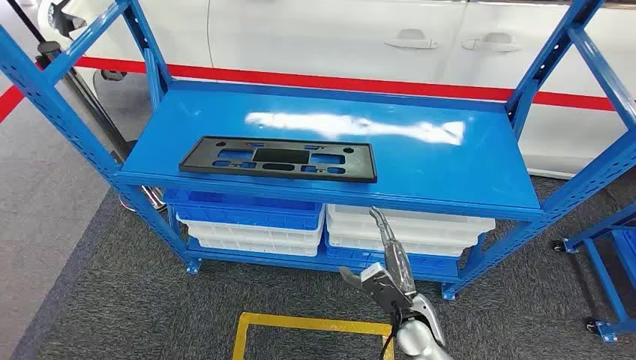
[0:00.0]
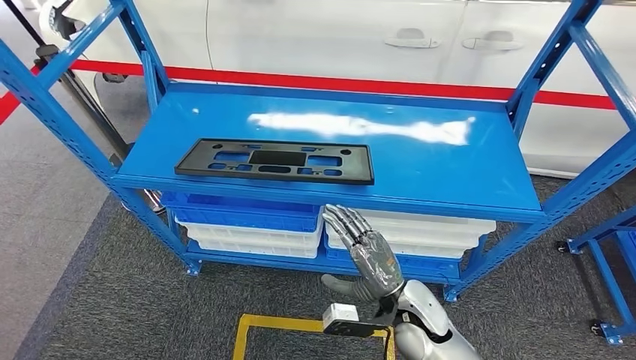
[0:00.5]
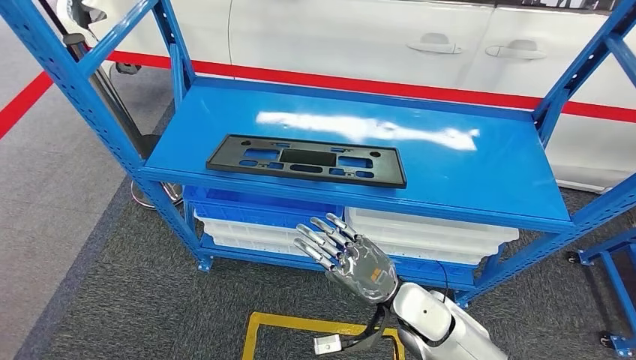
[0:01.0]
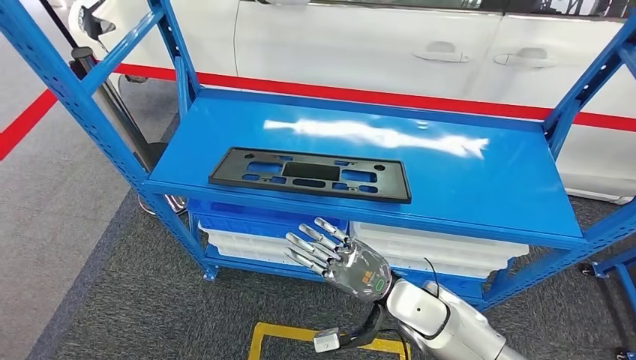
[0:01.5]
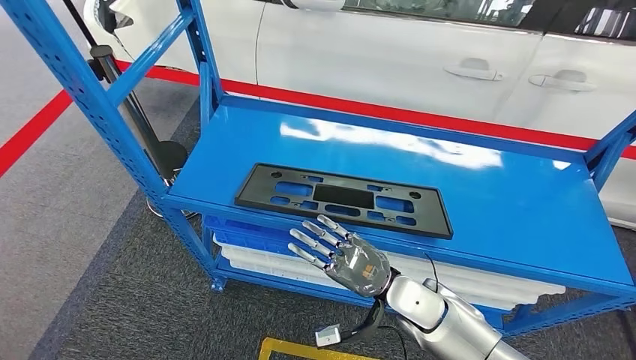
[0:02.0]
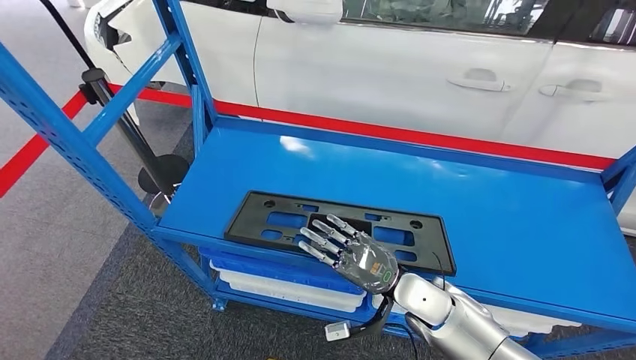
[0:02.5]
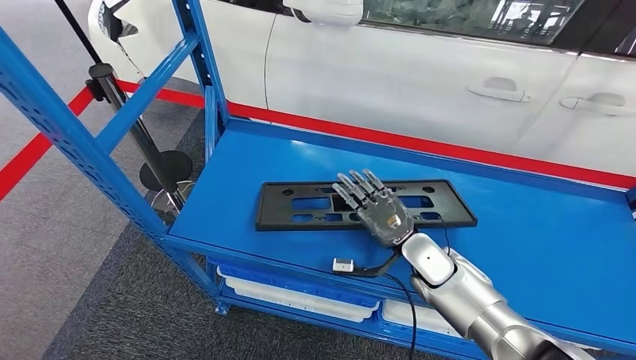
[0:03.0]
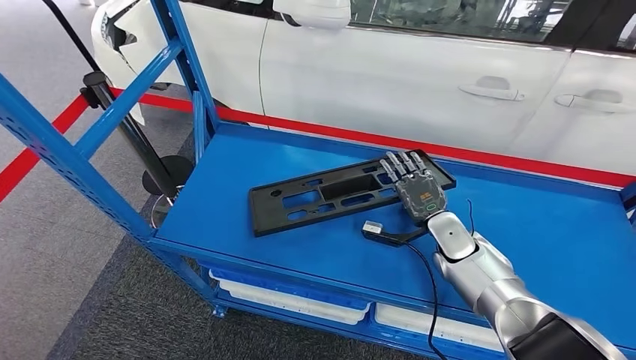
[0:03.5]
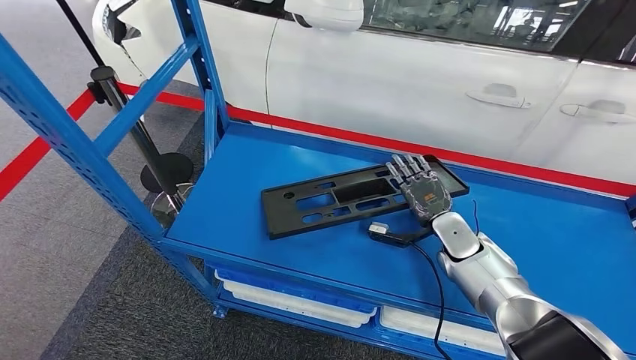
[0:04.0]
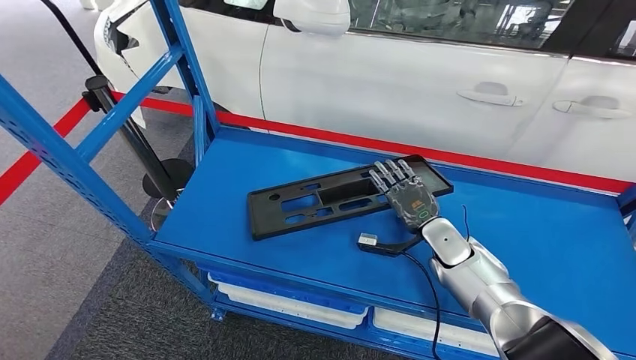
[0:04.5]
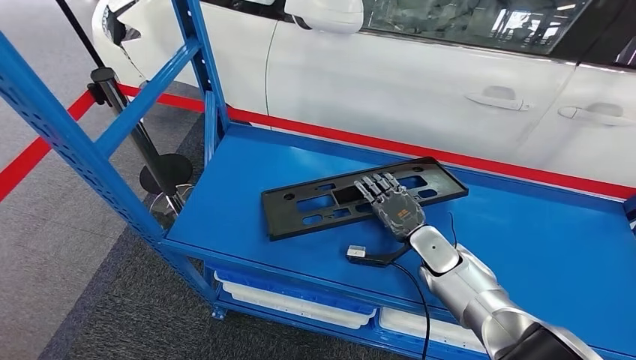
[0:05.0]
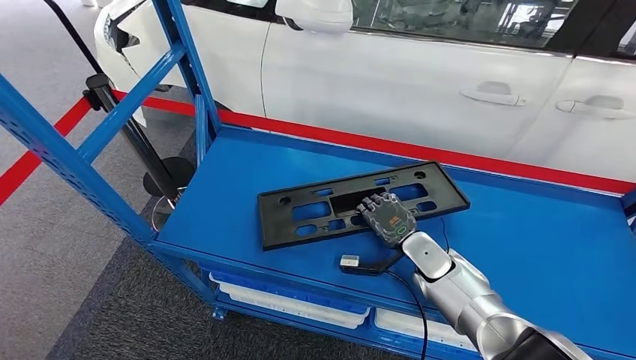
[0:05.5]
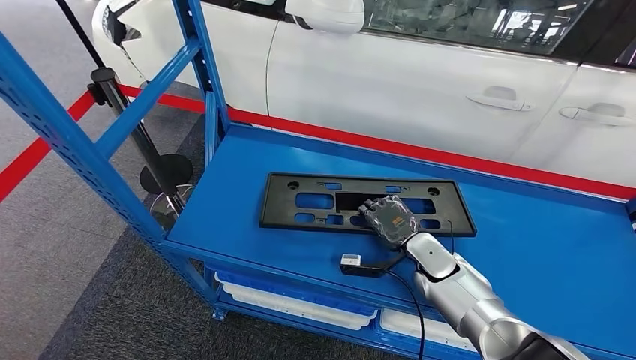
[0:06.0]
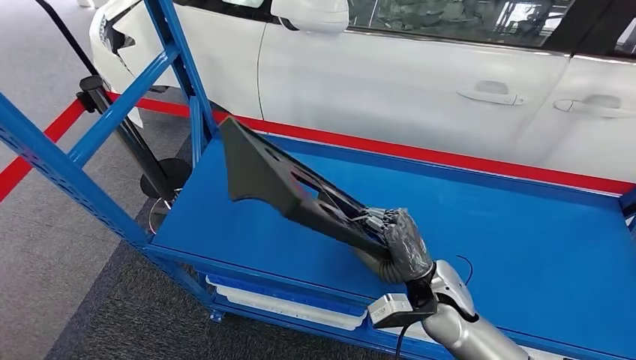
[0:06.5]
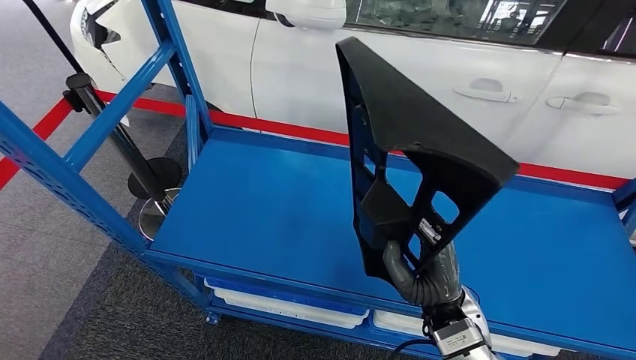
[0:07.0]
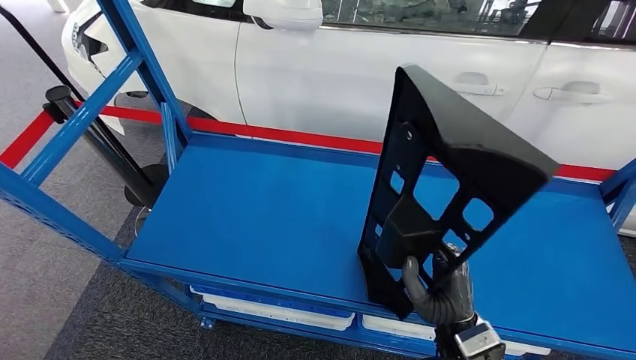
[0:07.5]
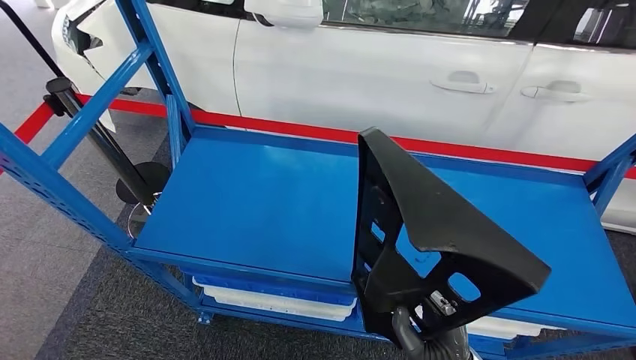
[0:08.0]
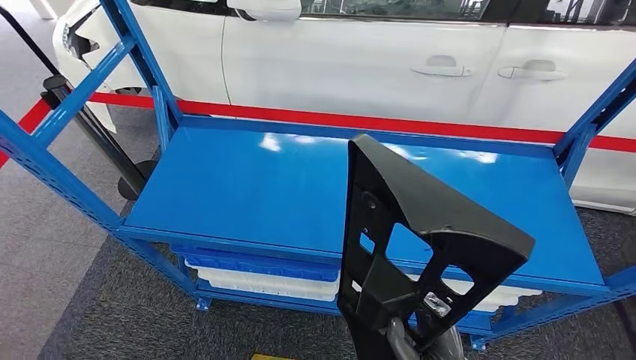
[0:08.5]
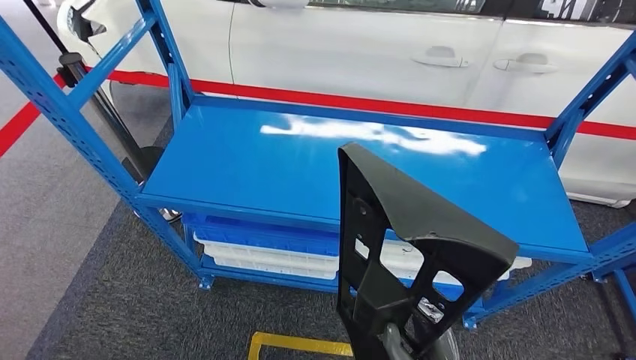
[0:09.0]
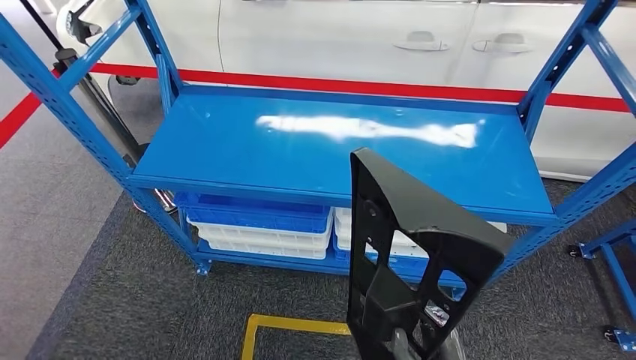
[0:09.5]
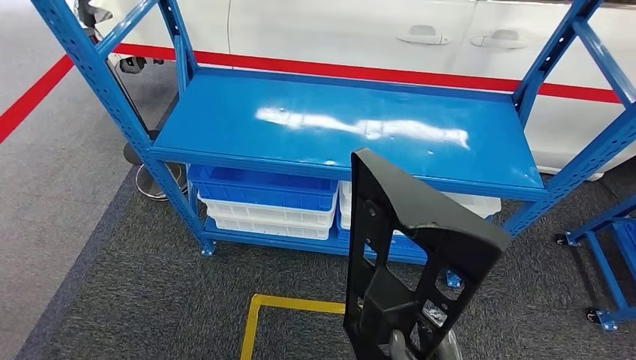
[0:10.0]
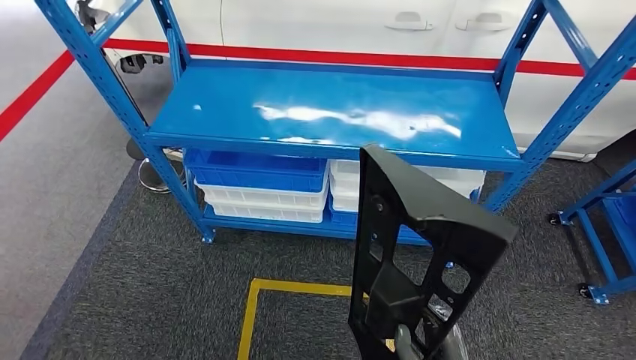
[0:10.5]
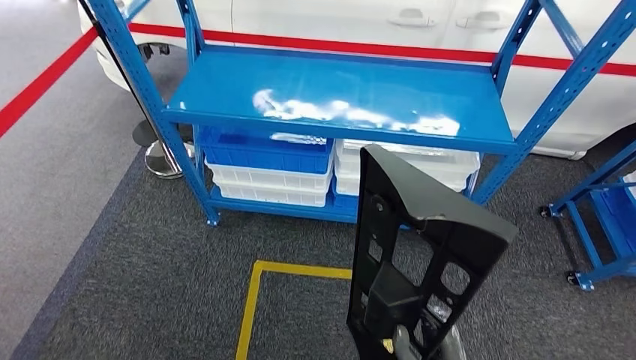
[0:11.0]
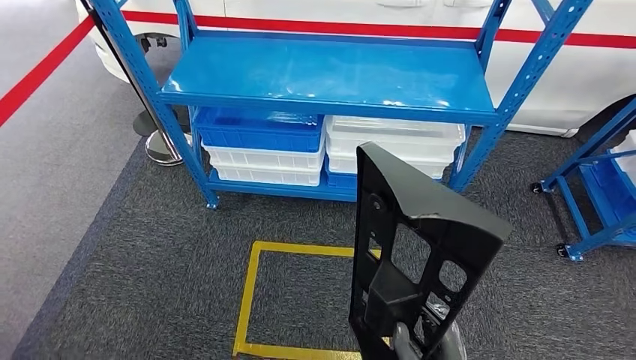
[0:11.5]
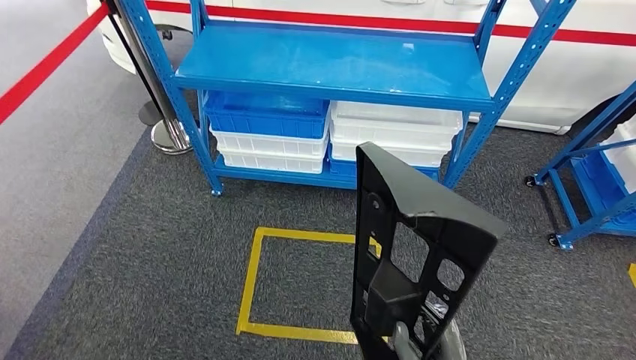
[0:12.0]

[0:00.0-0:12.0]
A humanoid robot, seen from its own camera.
Step, 0:00.0 to 0:08.0: Pick up the large material from the shelf.
0:04.0 to 0:06.0: The right hand moves to the left, some 5 cm.

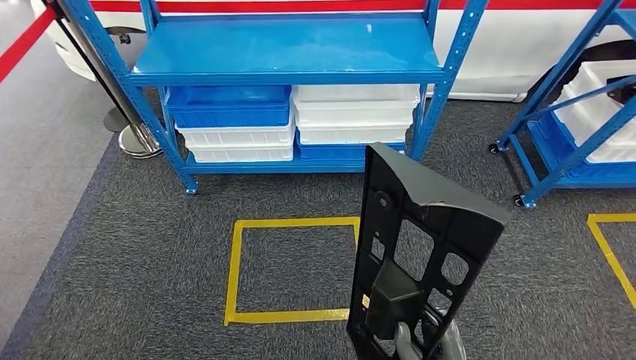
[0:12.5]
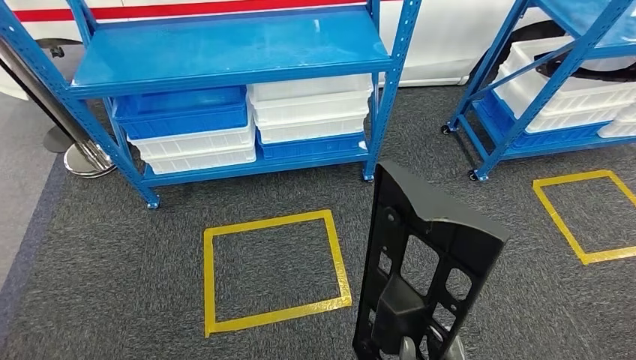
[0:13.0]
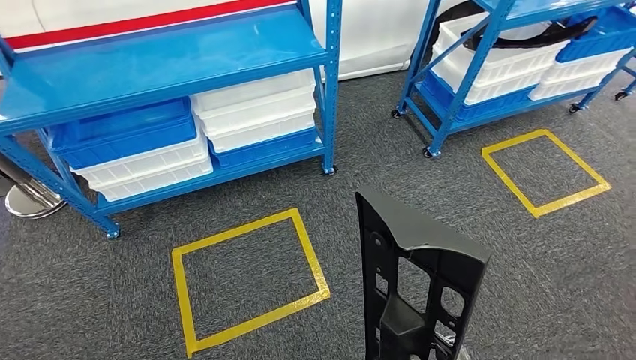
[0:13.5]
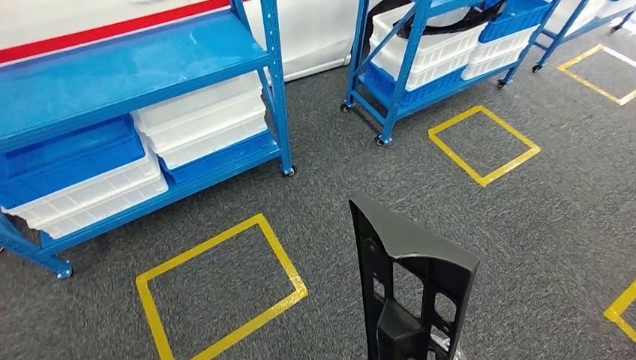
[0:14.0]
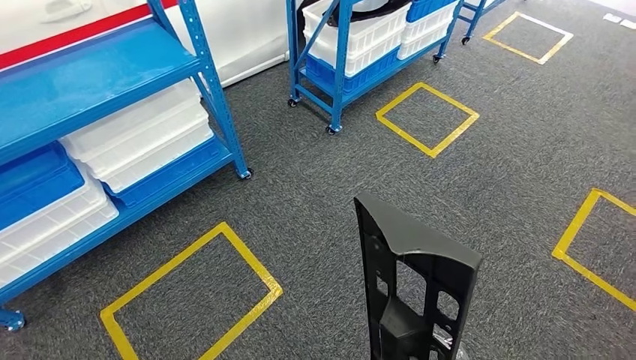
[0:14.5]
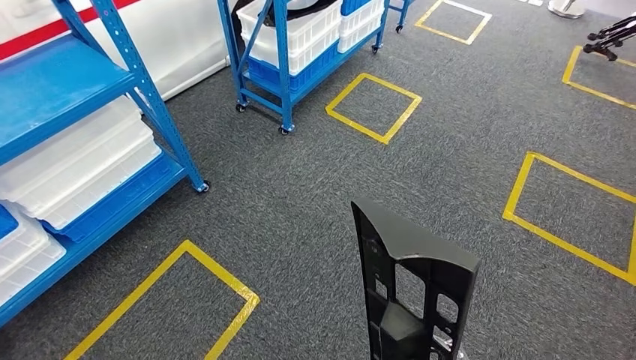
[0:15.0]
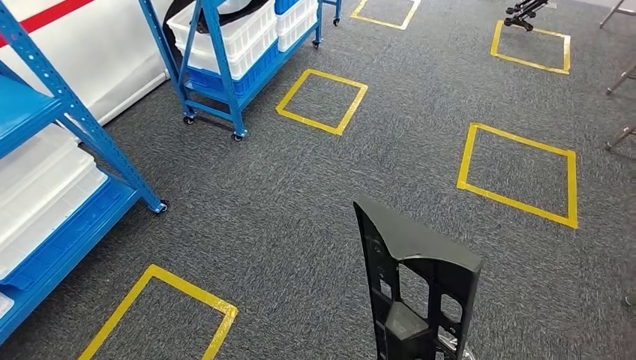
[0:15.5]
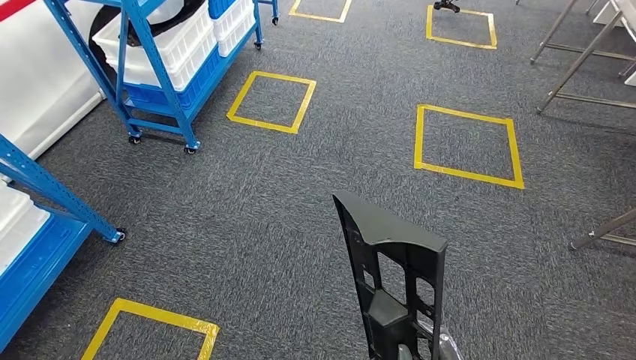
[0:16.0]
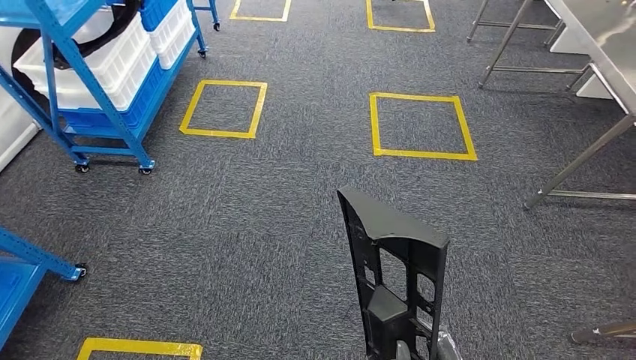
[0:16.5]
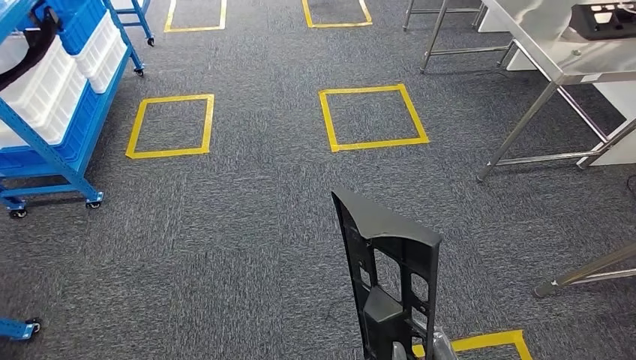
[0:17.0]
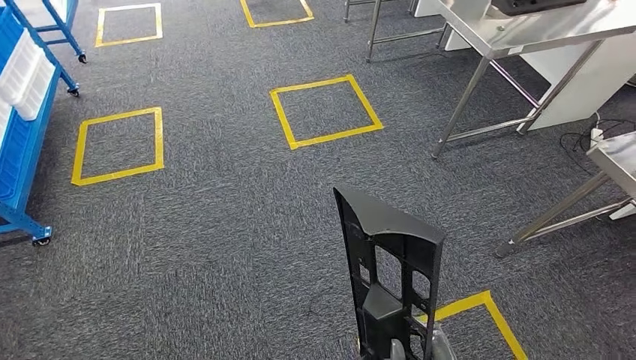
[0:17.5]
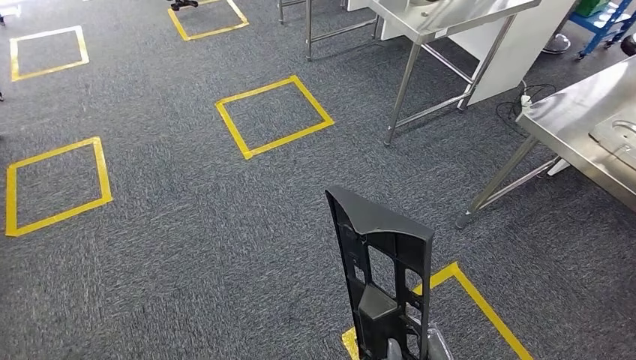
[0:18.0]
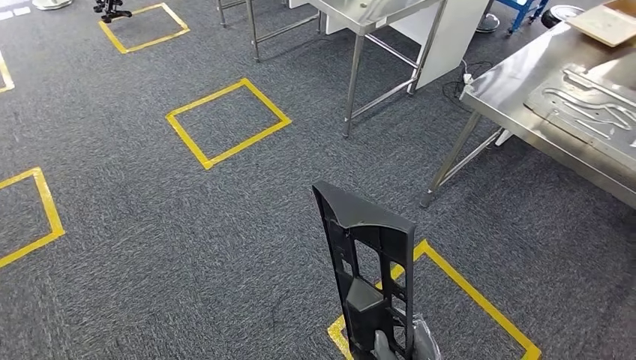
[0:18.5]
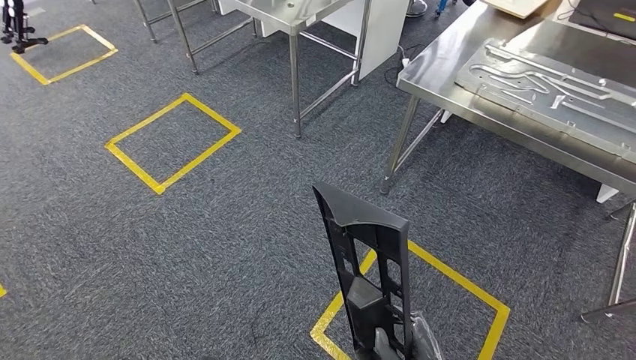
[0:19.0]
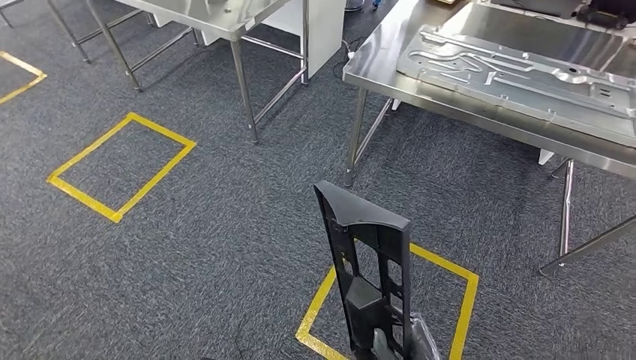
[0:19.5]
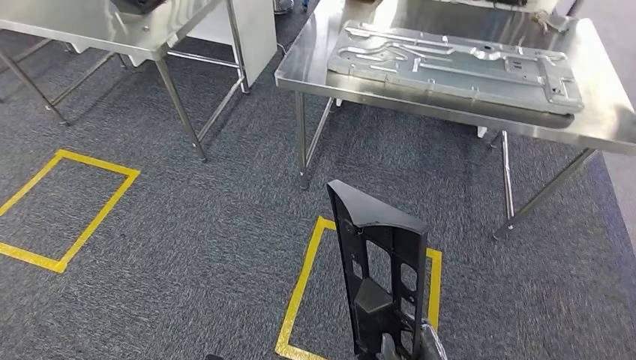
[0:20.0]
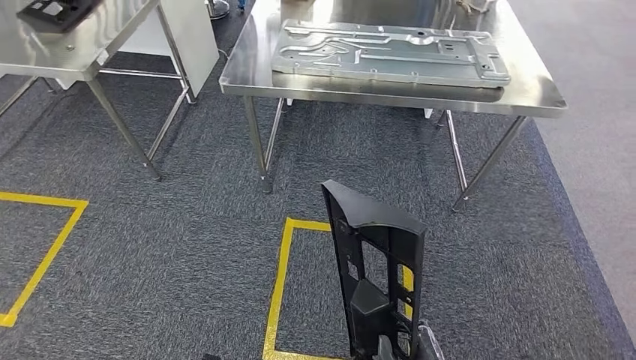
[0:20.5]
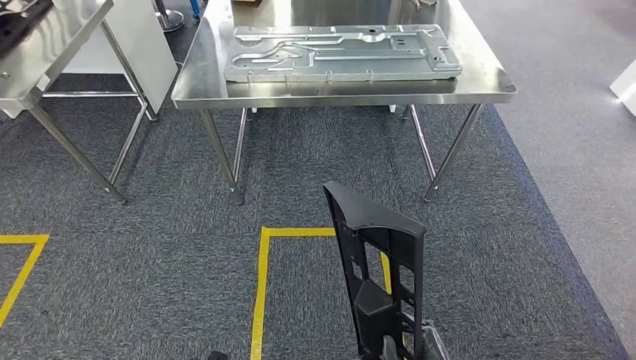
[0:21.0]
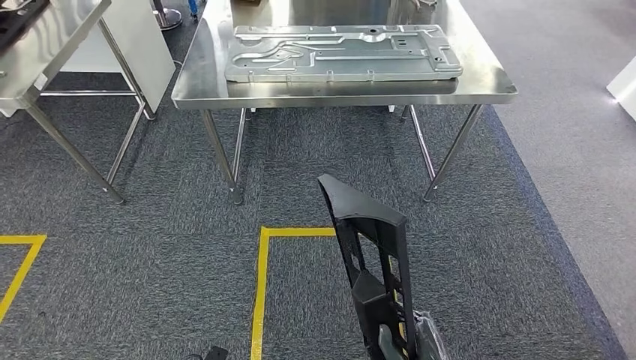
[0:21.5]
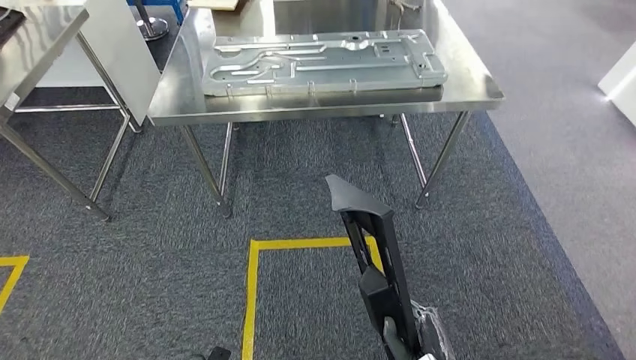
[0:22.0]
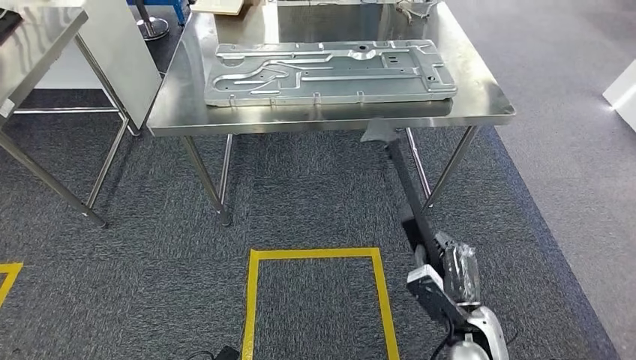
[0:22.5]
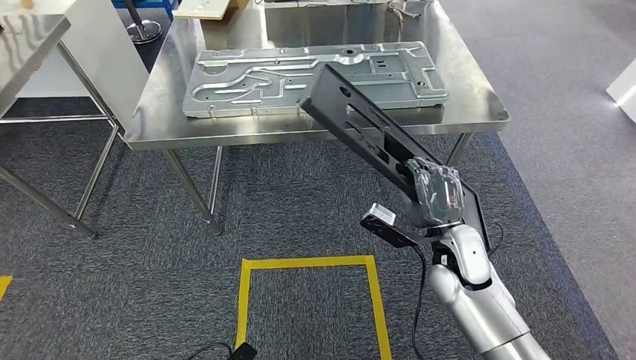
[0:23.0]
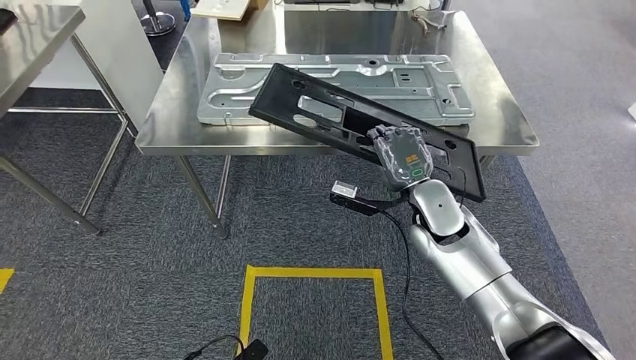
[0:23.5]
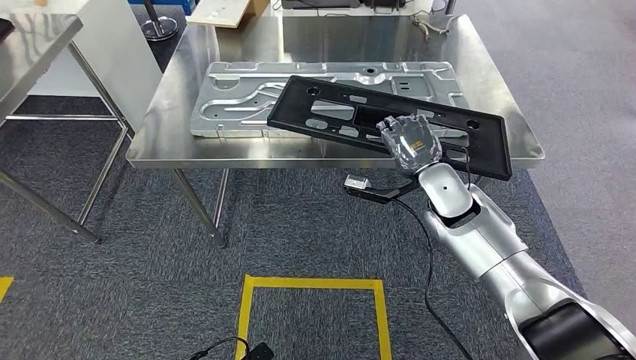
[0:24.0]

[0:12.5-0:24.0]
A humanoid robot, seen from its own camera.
Step, 0:12.5 to 0:20.5: Move the large material to the workbench.
